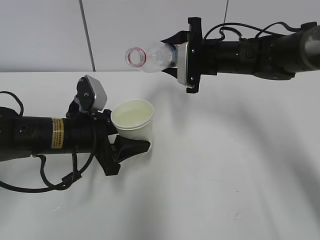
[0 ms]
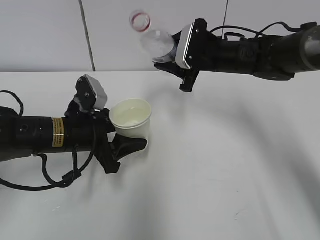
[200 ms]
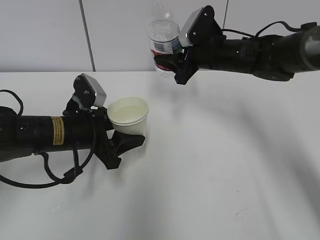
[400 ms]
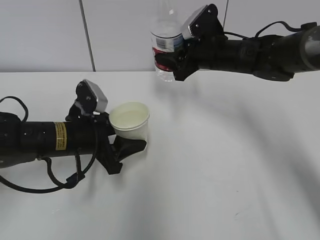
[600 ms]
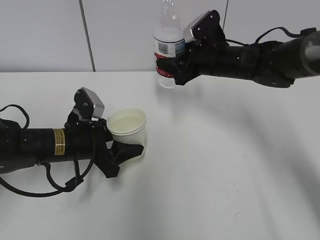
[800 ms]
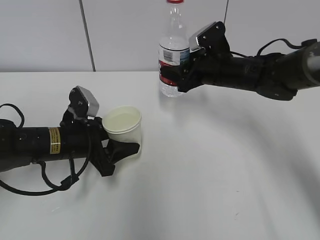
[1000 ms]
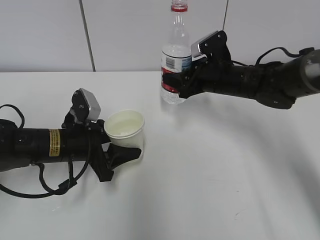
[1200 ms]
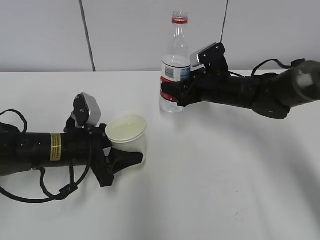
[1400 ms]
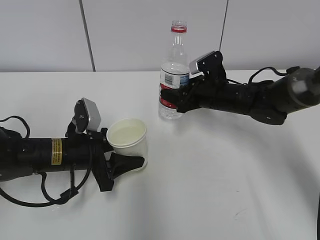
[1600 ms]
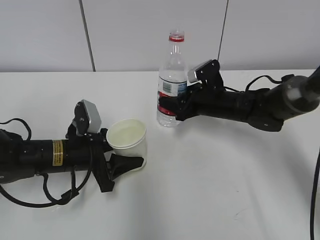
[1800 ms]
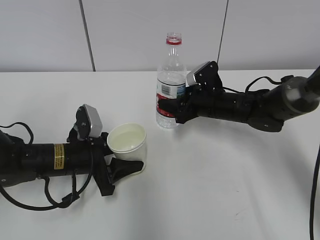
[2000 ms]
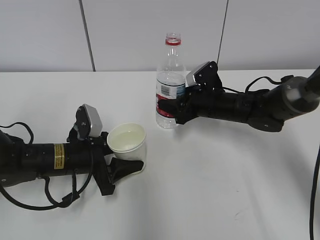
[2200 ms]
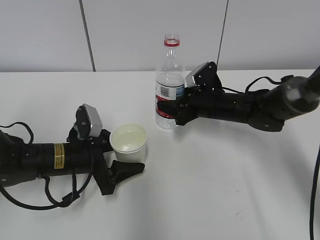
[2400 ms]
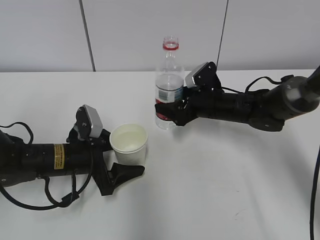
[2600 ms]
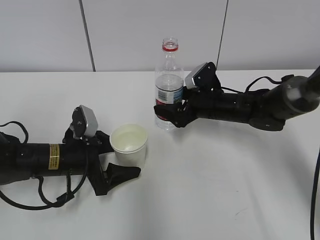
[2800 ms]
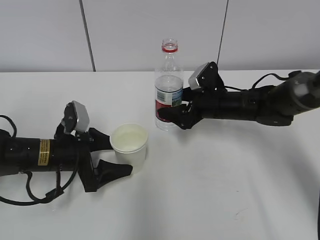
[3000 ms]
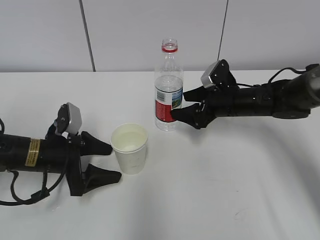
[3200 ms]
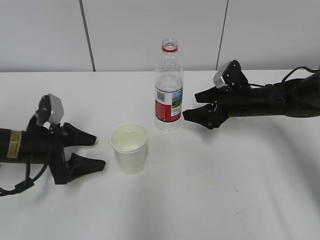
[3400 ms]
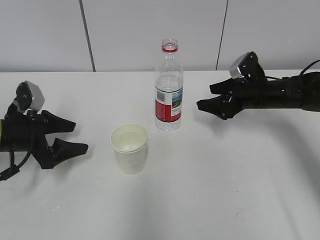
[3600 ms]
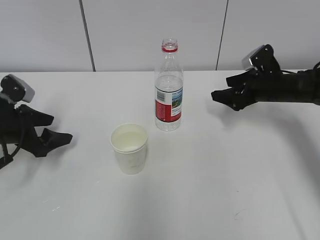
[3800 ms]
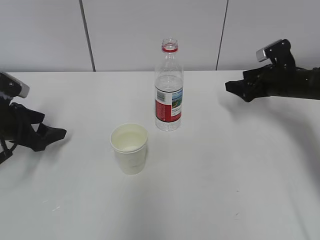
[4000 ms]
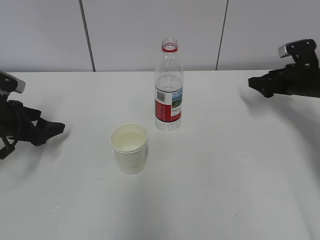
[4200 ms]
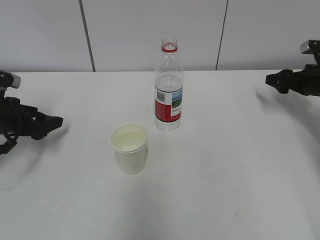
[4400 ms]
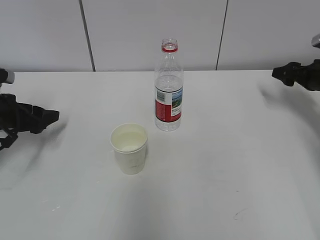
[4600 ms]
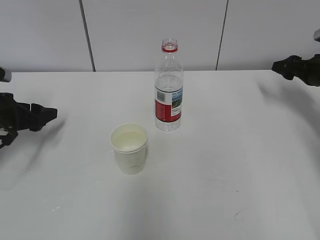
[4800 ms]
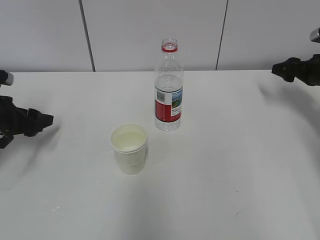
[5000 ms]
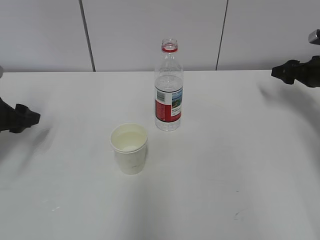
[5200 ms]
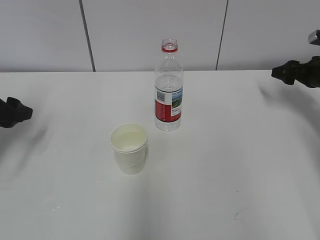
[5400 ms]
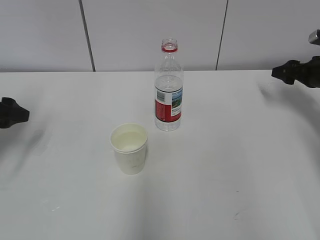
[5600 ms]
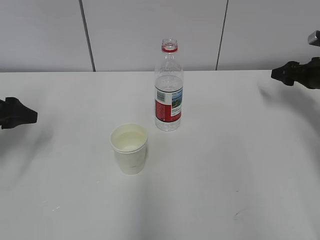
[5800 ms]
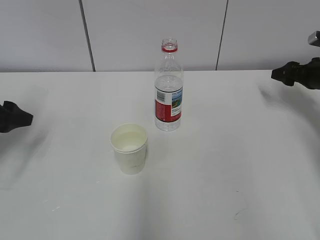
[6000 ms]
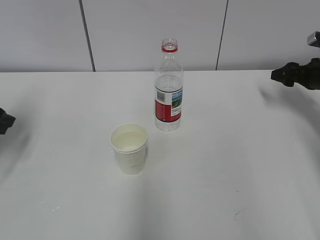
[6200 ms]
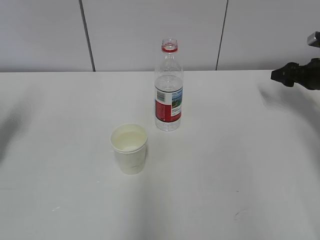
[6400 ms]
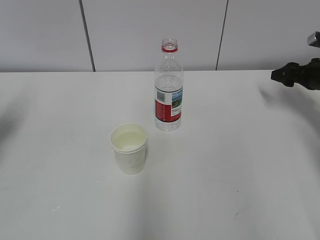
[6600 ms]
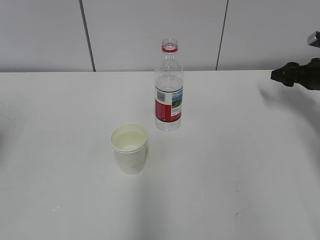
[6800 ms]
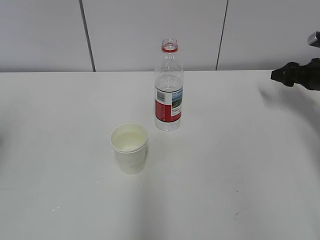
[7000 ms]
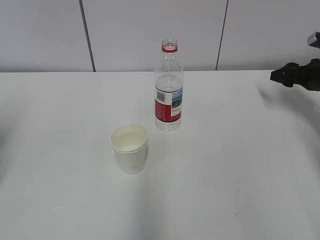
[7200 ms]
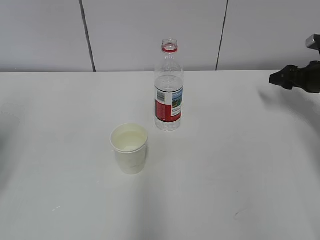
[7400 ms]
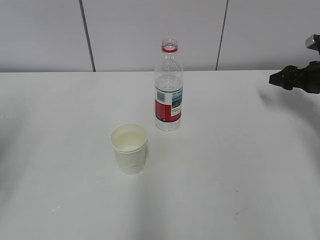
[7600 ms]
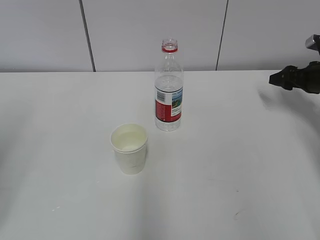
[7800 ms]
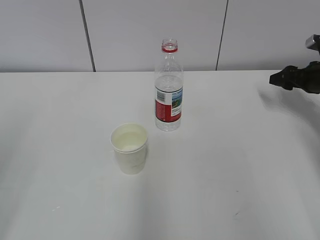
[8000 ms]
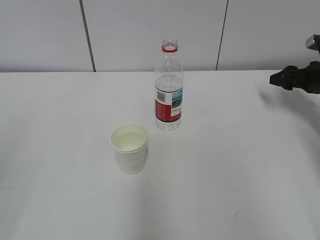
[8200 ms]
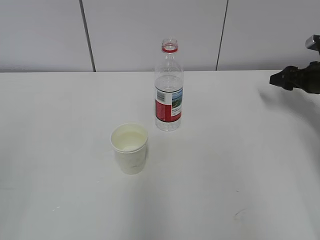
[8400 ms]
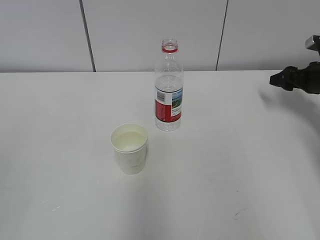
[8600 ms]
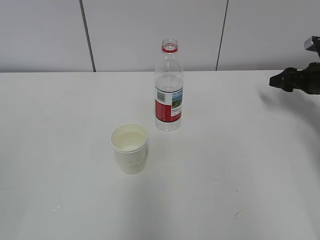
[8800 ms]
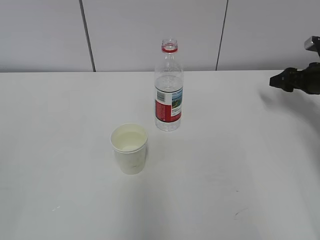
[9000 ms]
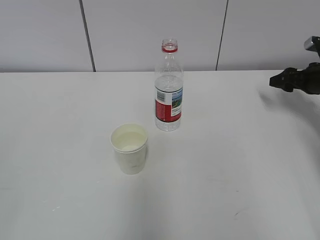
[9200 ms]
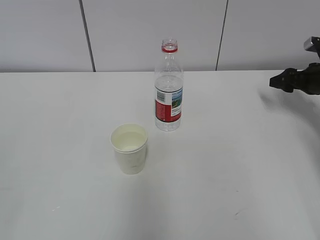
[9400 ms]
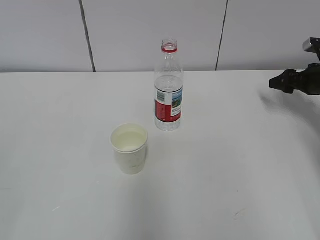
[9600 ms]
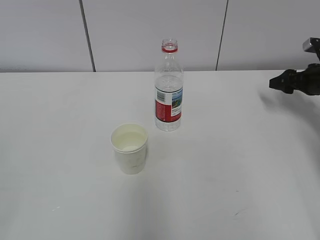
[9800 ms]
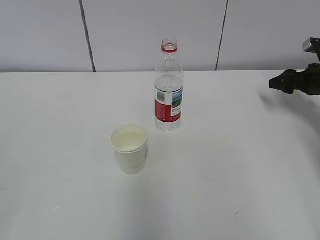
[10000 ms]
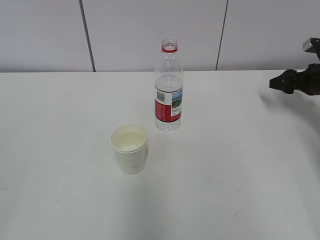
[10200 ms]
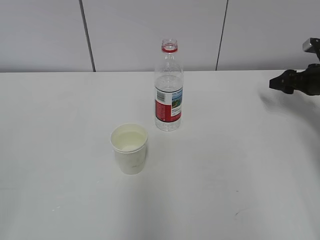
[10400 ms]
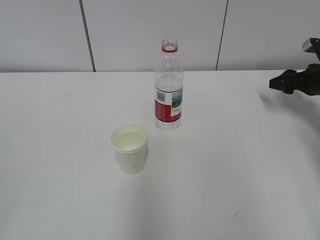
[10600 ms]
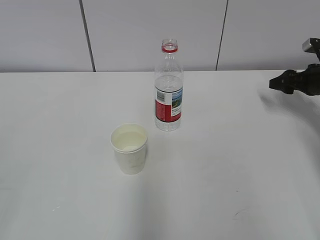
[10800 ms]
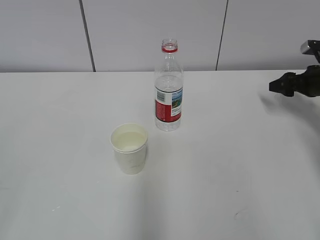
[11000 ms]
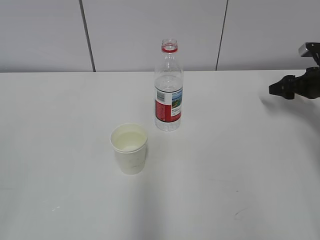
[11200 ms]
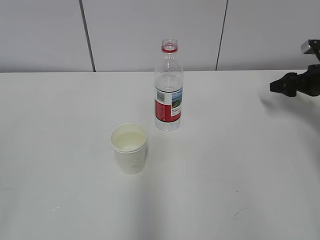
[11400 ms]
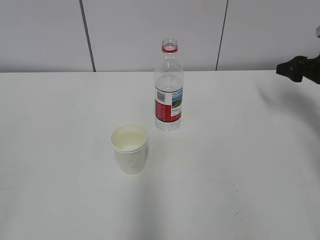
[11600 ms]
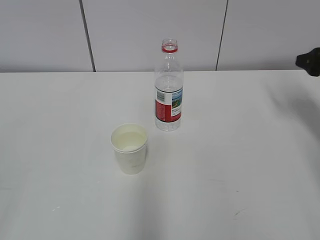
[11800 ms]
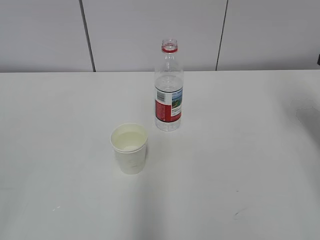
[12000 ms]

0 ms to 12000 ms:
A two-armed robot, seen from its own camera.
0 ms to 1600 ms: The right gripper goes about 10 cm downward, while the left gripper shifts approximately 5 cm downward.
1600 ms to 3000 ms: The right gripper opens its fingers, while the left gripper opens up.
3000 ms to 4400 ms: The right gripper moves to the right, about 20 cm. Meanwhile the left gripper heads to the left and upward, covering roughly 15 cm.
4400 ms to 6000 ms: The left gripper heads upward, covering approximately 5 cm.
6000 ms to 7600 ms: The left gripper is displaced backward and upward by approximately 15 cm.
7600 ms to 9000 ms: The left gripper goes some 20 cm backward.
10400 ms to 12000 ms: The right gripper heads backward and upward, covering about 15 cm.

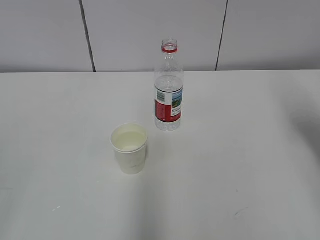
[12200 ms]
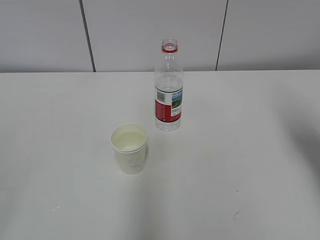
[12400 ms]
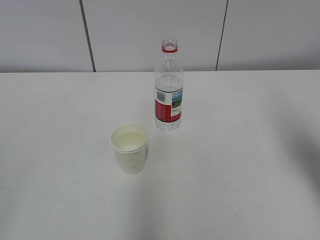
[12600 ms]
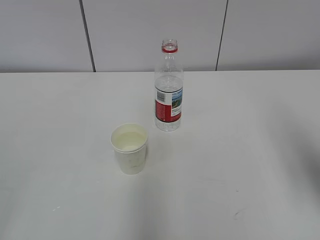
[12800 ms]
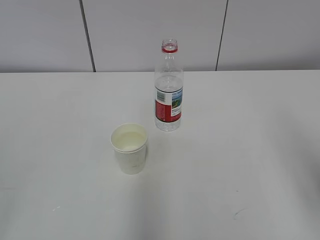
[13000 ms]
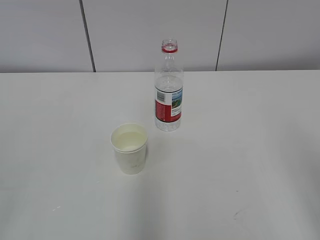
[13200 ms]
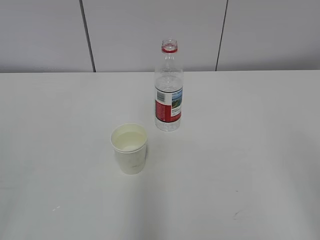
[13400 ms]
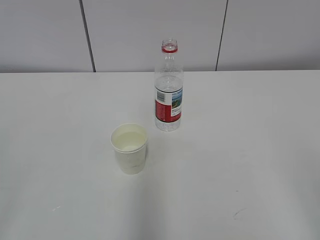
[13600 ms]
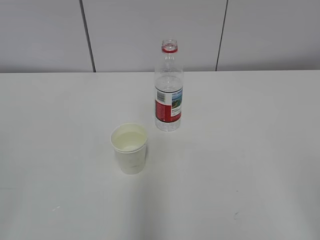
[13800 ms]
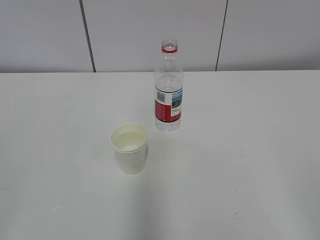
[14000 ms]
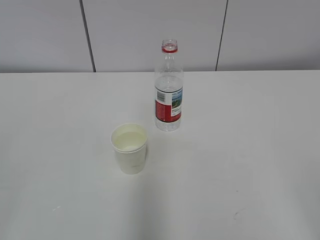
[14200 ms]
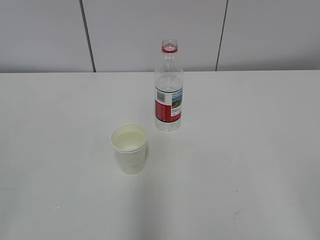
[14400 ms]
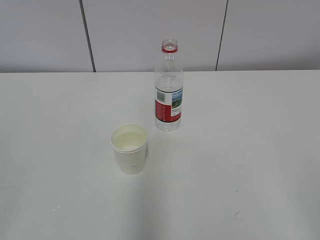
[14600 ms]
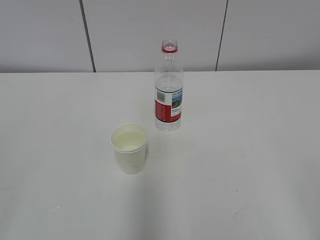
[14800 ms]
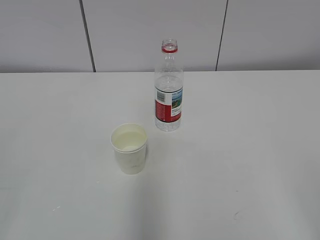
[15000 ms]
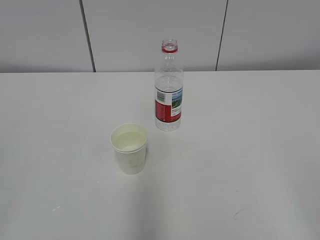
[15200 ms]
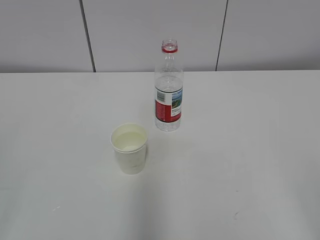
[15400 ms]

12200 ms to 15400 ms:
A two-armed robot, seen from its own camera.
12200 ms to 13800 ms: The right gripper shifts approximately 30 cm backward.
13800 ms to 15400 ms: Both grippers stay about where they are.

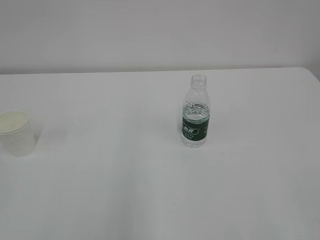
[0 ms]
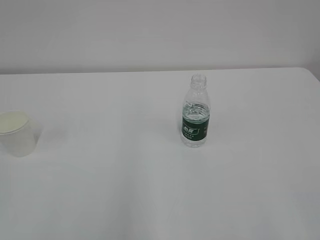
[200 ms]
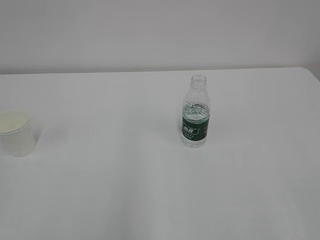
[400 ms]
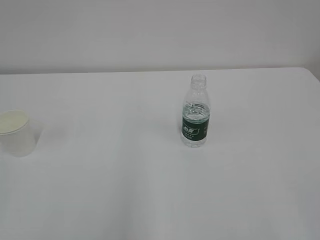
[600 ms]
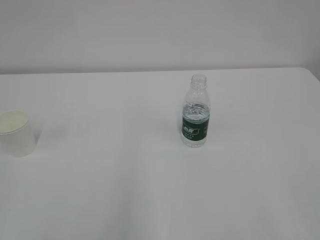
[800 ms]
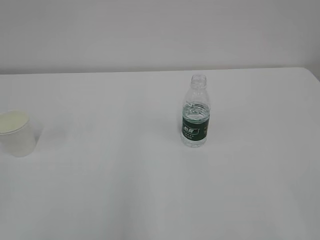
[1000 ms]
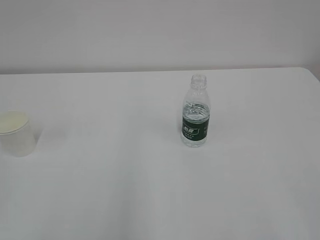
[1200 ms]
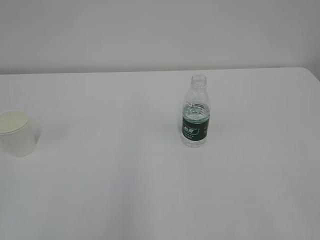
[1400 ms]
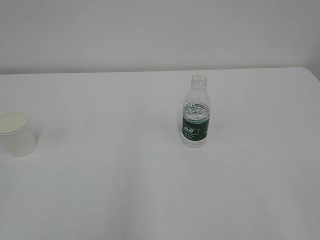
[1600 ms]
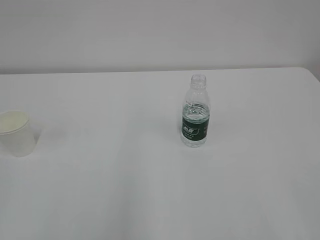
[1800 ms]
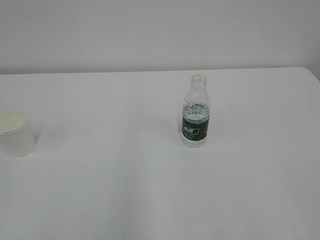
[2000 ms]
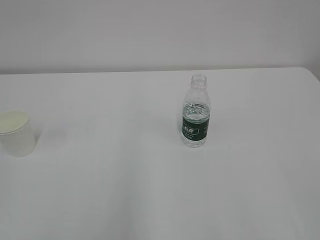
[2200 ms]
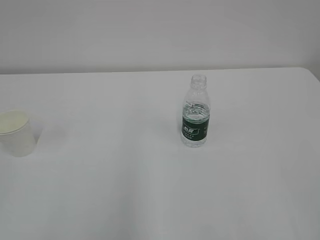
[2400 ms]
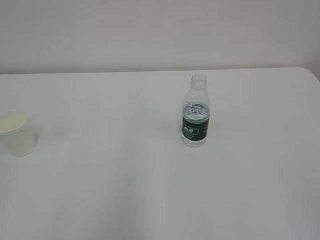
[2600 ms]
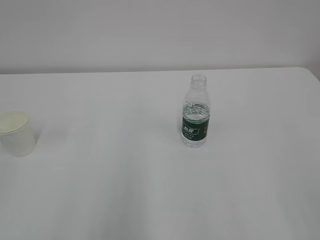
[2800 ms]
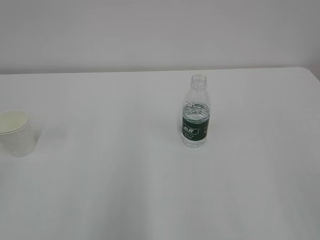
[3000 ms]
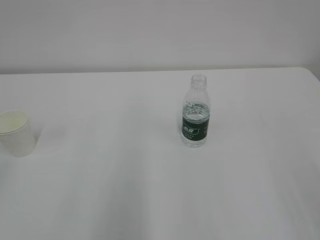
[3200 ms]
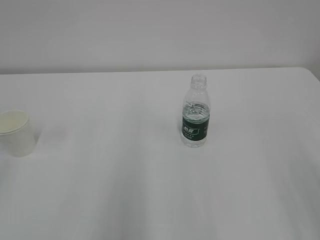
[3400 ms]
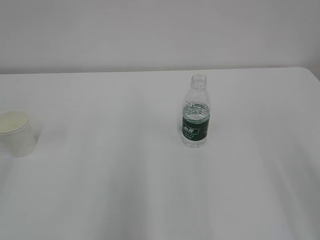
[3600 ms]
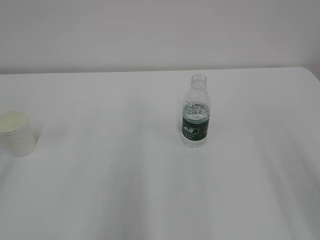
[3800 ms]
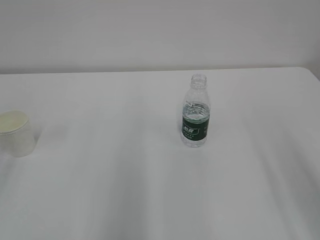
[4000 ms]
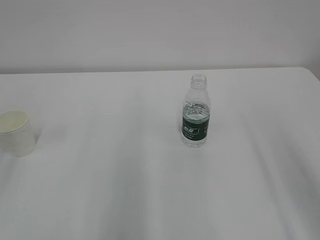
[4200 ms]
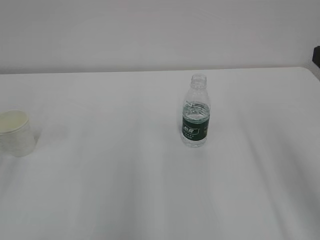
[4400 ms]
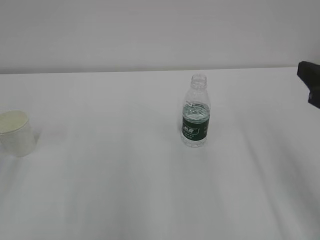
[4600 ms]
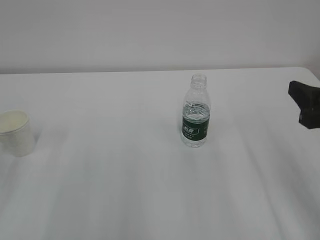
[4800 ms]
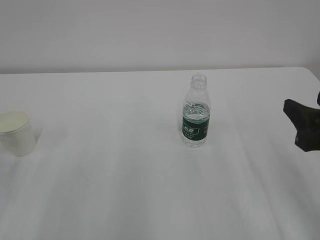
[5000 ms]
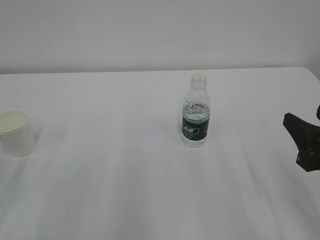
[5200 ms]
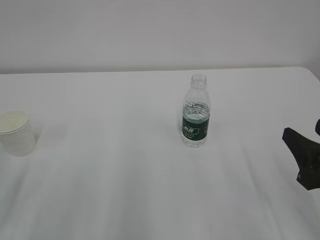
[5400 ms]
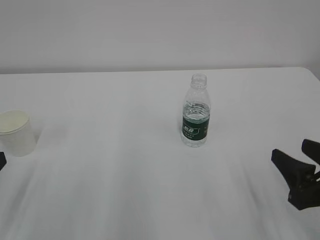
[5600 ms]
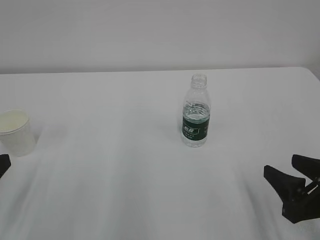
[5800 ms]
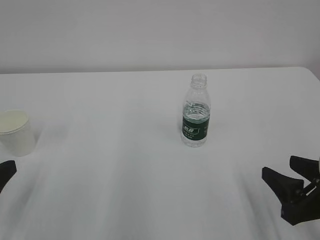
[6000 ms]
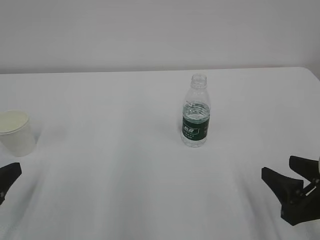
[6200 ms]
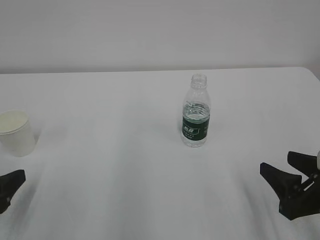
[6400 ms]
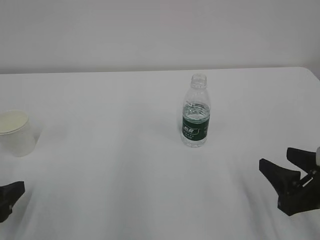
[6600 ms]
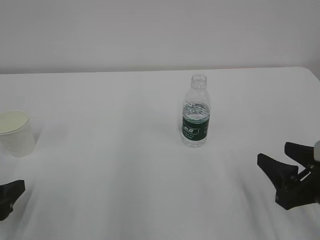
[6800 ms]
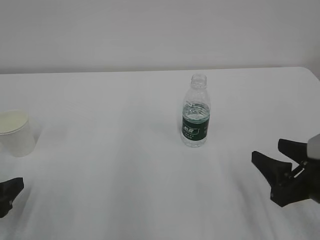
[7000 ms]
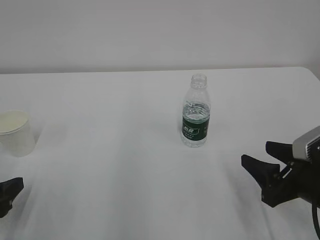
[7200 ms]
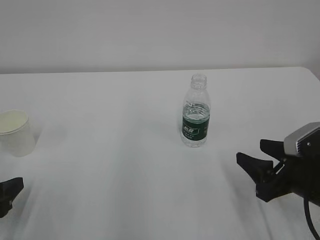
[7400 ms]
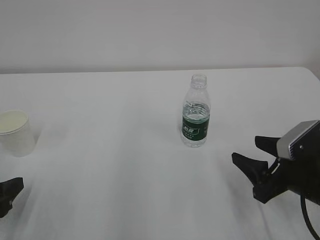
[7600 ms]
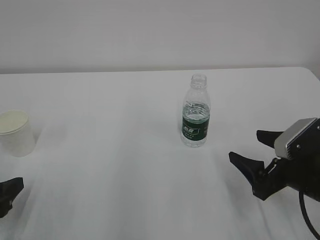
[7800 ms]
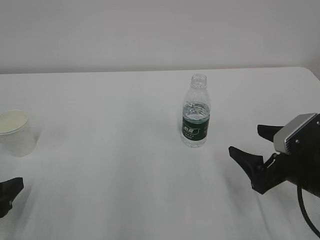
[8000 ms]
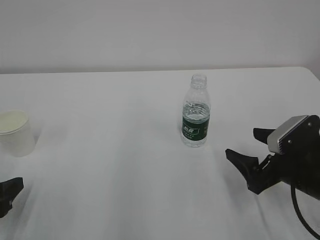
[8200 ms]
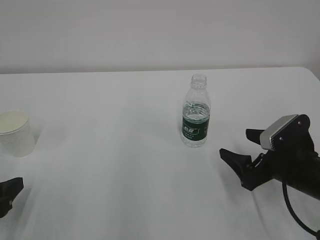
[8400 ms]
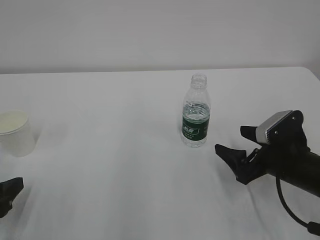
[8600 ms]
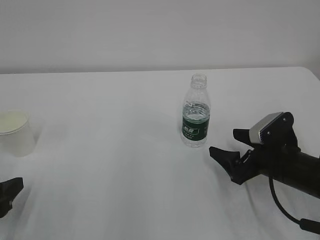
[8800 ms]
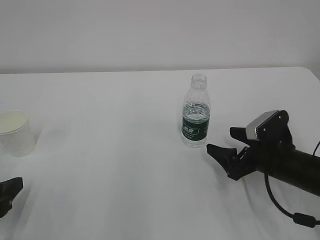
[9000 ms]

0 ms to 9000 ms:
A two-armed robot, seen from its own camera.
4400 ms to 6000 ms: Both grippers move downward, about 15 cm.
6000 ms to 7600 ms: The right gripper shifts about 5 cm forward.
7600 ms to 9000 ms: The right gripper heads forward, covering approximately 5 cm, and opens its fingers.
